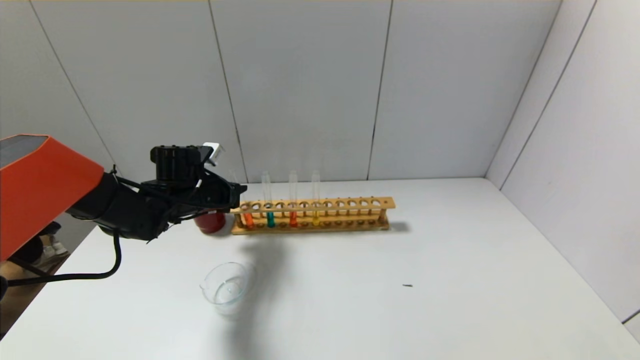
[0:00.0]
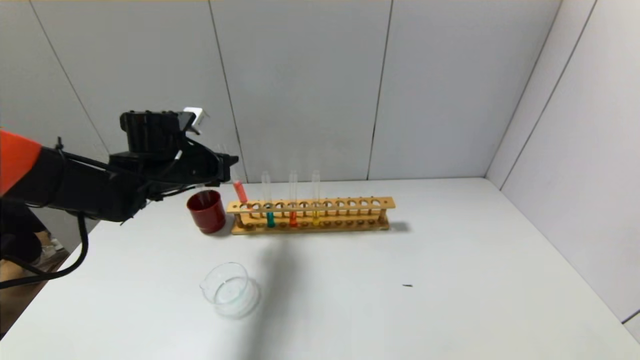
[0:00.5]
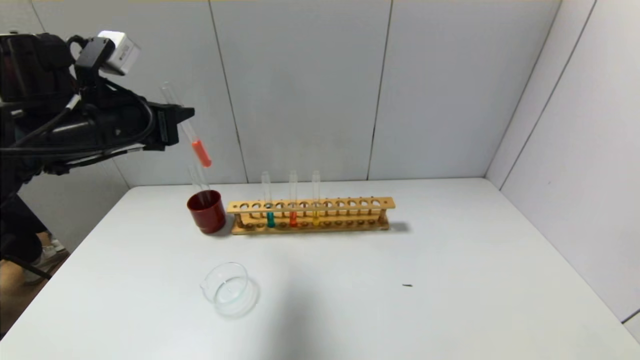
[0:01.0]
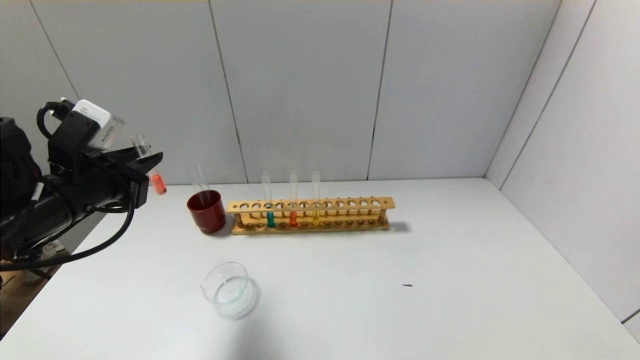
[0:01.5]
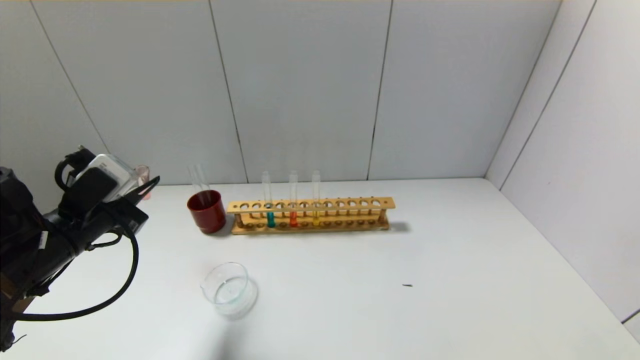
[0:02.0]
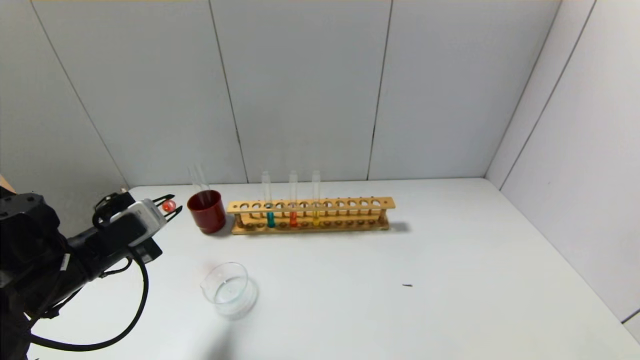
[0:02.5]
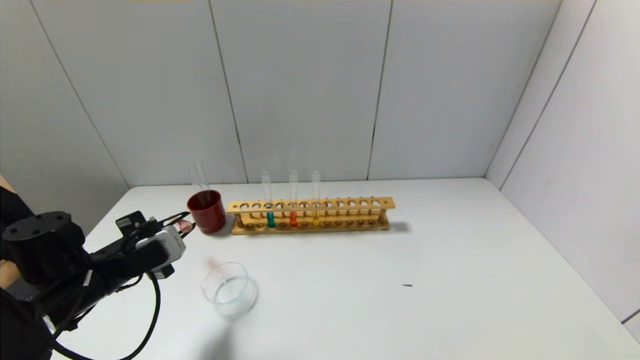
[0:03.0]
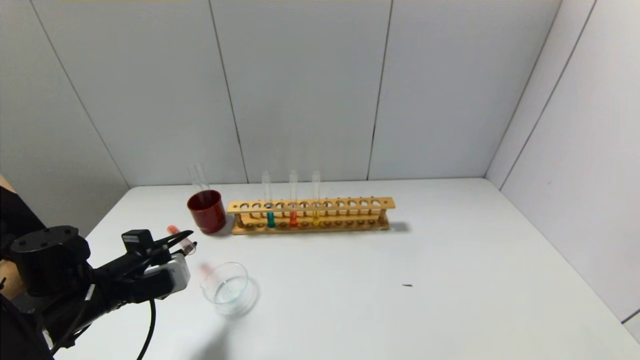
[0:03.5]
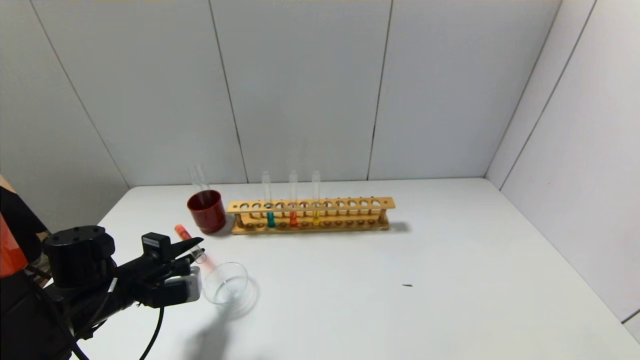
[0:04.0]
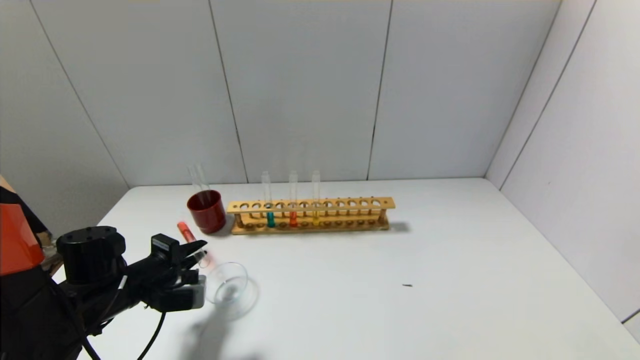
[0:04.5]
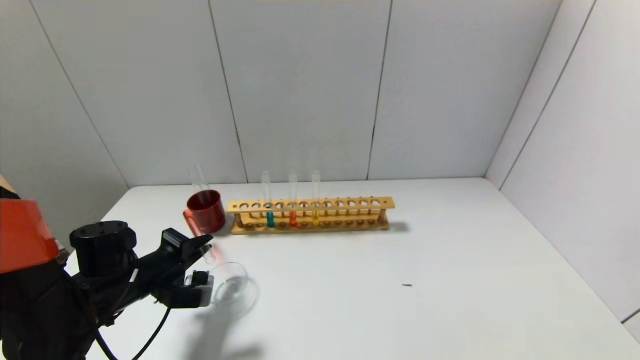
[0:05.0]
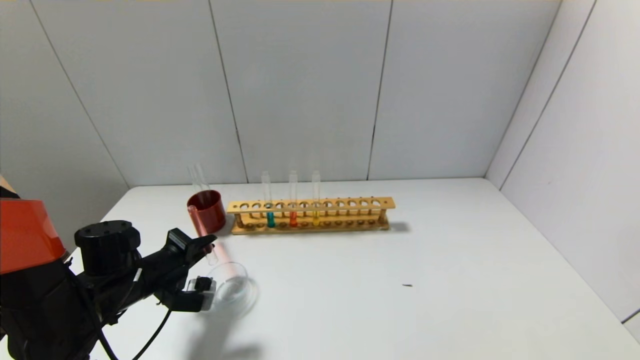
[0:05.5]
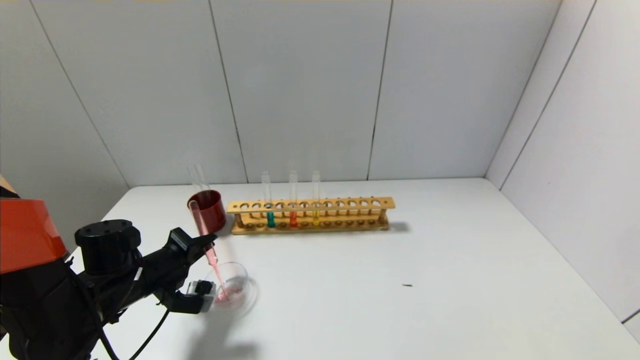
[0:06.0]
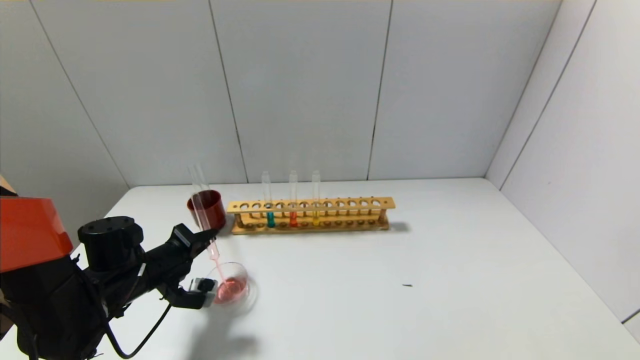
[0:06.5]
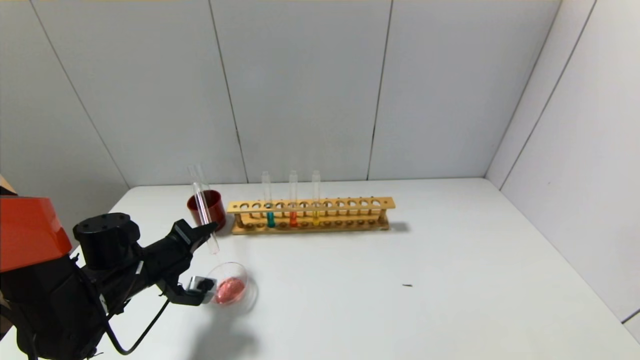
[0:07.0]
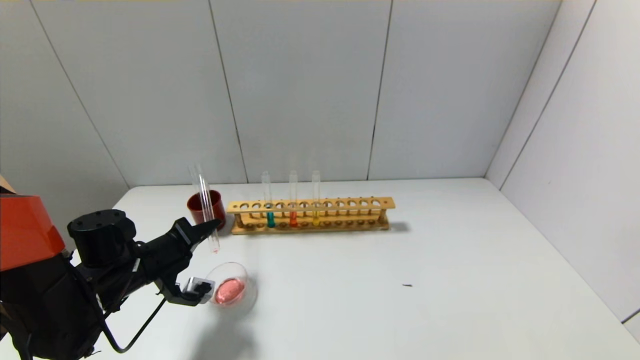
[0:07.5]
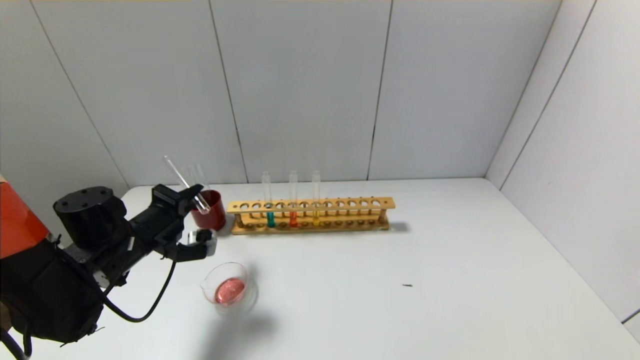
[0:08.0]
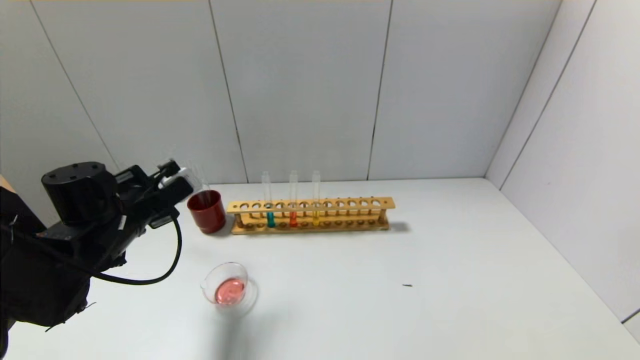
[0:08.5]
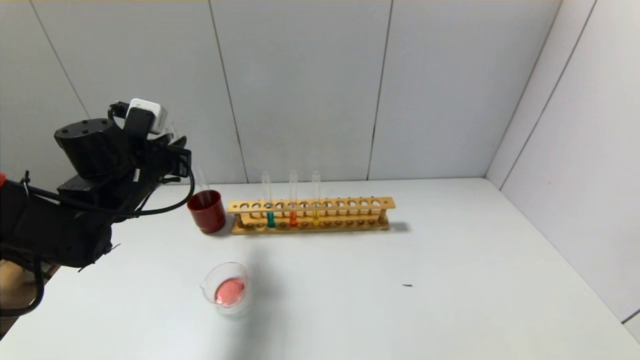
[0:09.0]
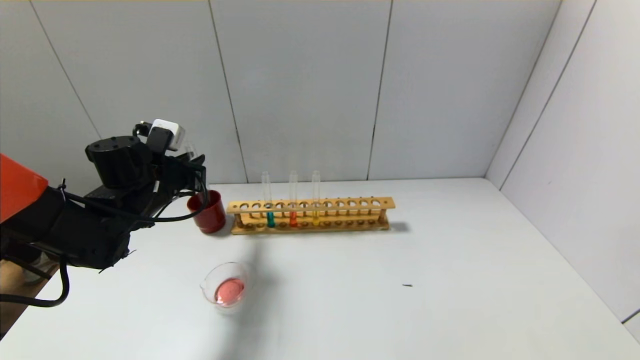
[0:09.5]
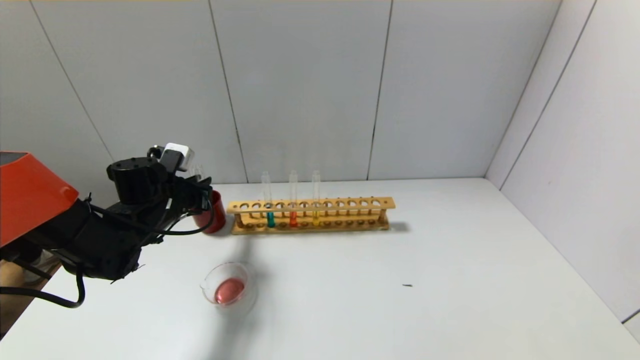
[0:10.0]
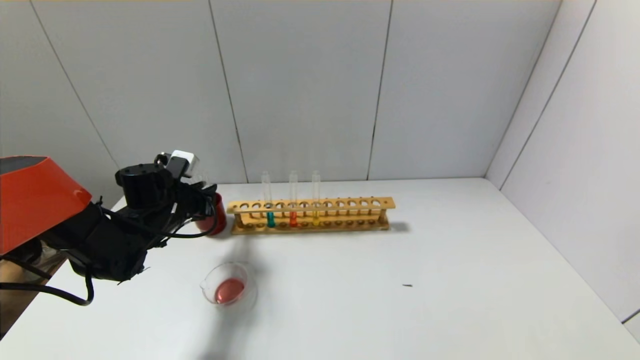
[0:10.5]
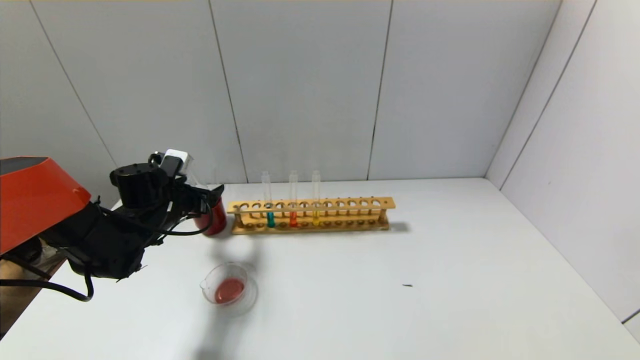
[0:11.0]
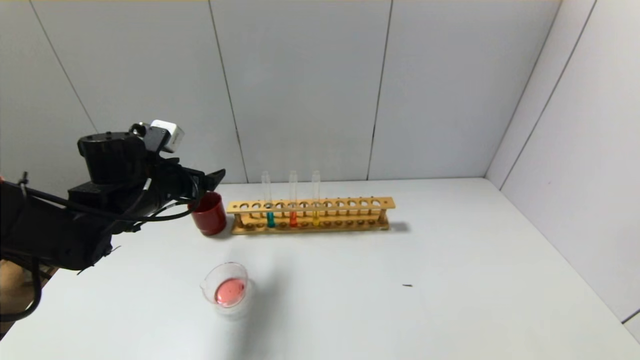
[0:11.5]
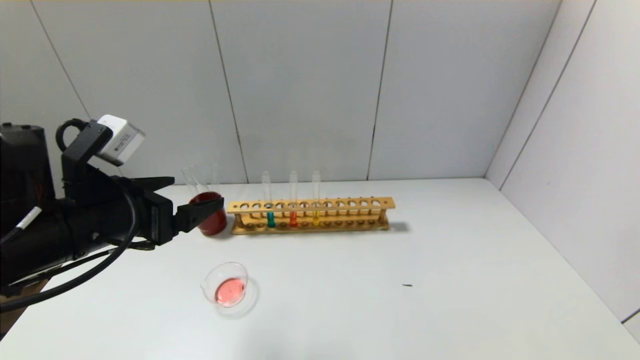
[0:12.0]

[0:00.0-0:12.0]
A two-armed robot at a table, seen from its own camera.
Step, 0:00.0 to 0:07.5: Pour the red reagent into the graduated cylinder with the left gripper.
Step, 0:08.0 to 0:10.5: Place the test tube into the brown cup with the left gripper.
0:00.0 to 0:02.0: The left gripper travels backward by roughly 15 cm.
0:02.0 to 0:04.0: The left gripper shifts approximately 10 cm downward.
0:06.0 to 0:08.0: The left gripper travels upward by about 5 cm.
0:08.0 to 0:10.0: The left gripper travels forward by some 5 cm, and travels upward and back again, approximately 10 cm each way.
0:10.0 to 0:12.0: The left gripper goes approximately 20 cm backward and upward, and opens up.

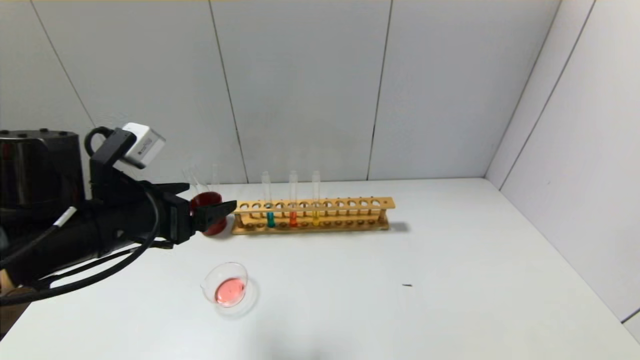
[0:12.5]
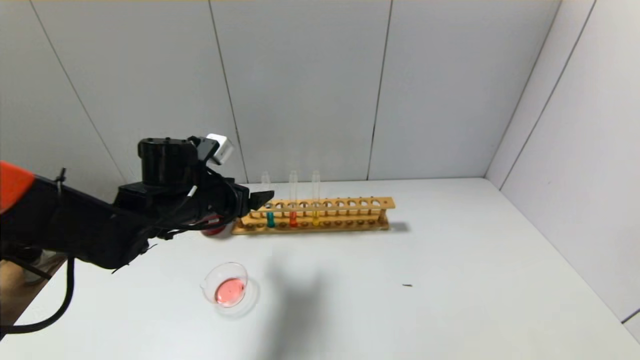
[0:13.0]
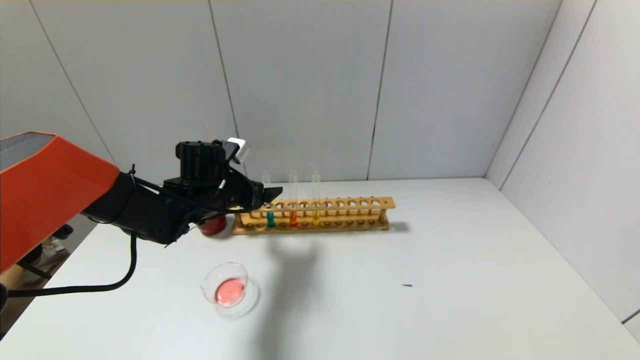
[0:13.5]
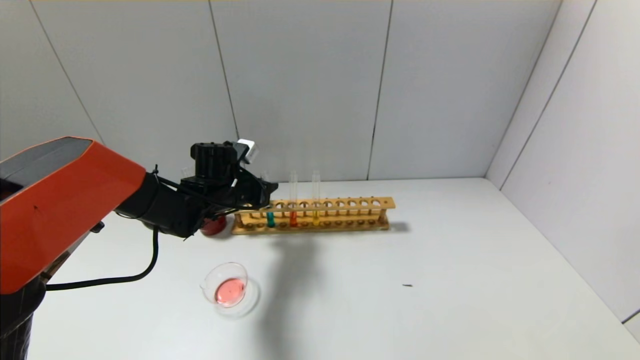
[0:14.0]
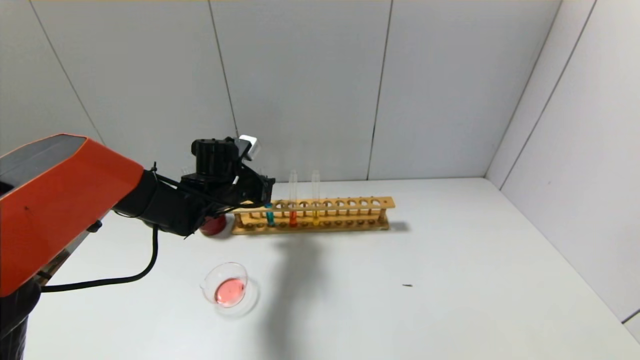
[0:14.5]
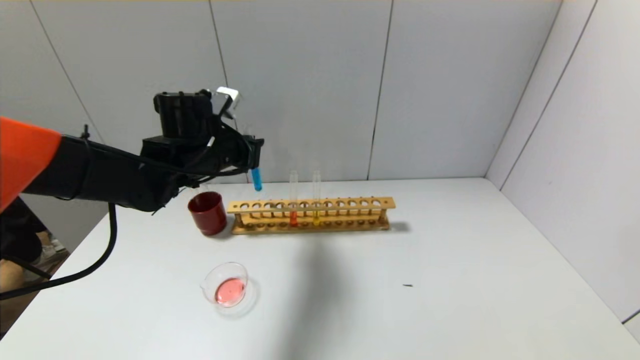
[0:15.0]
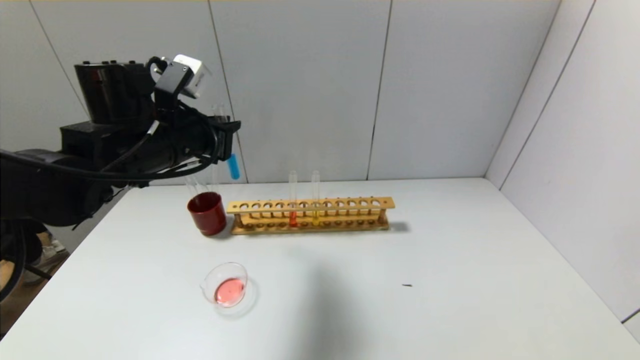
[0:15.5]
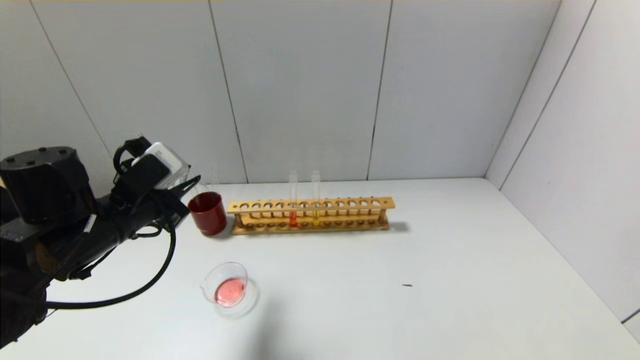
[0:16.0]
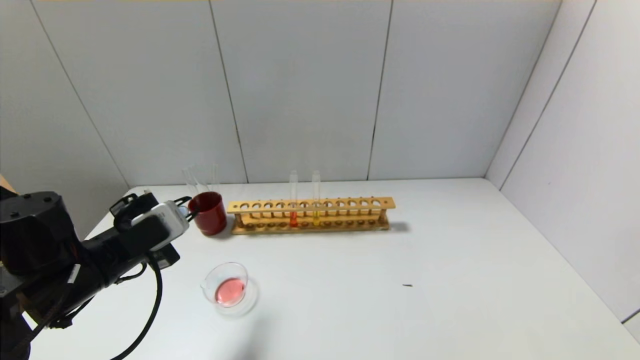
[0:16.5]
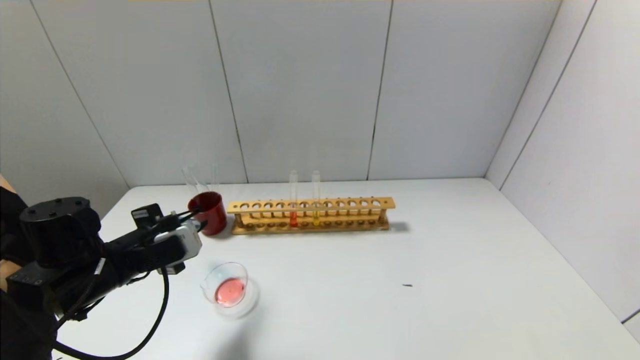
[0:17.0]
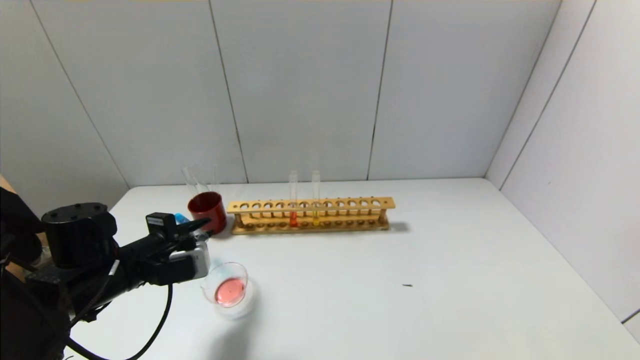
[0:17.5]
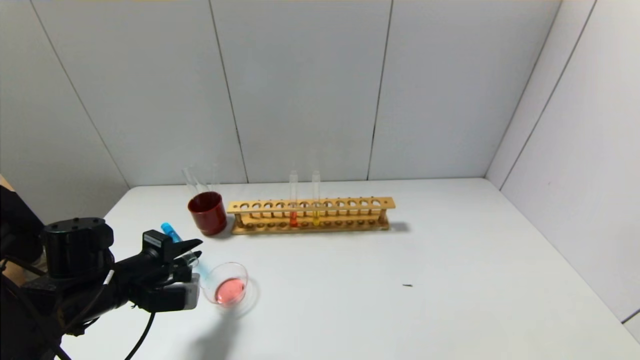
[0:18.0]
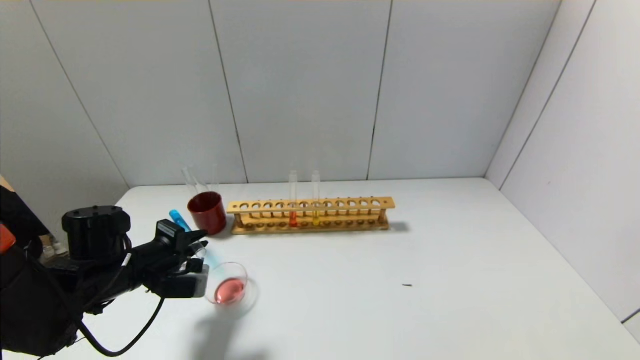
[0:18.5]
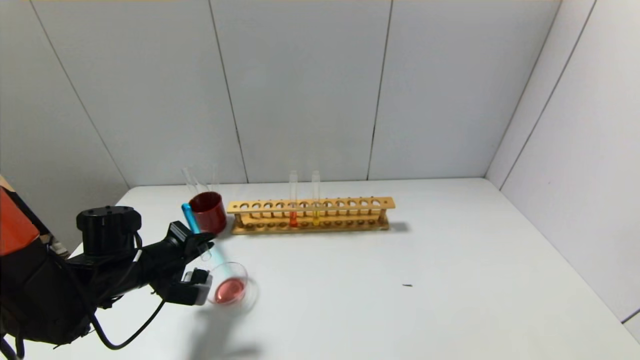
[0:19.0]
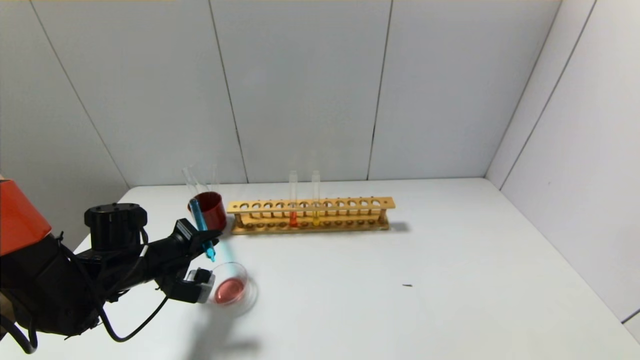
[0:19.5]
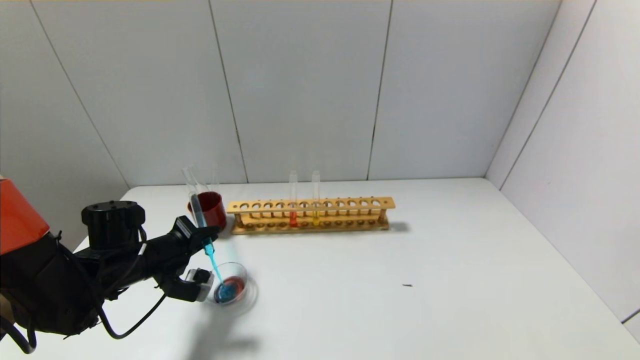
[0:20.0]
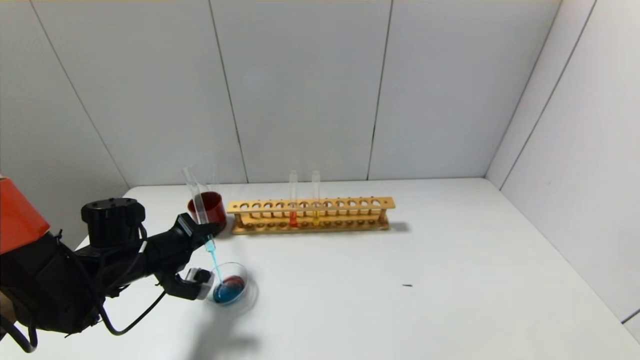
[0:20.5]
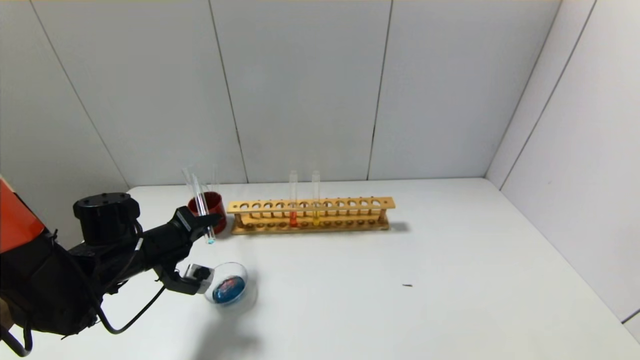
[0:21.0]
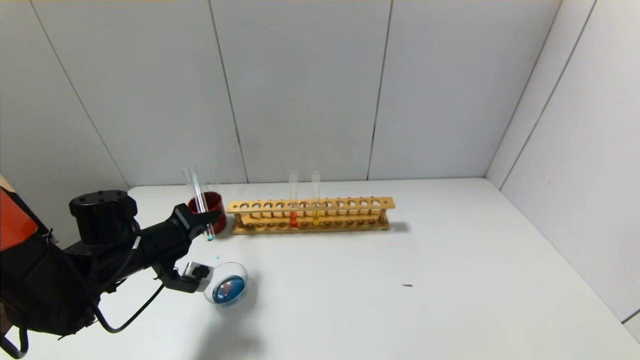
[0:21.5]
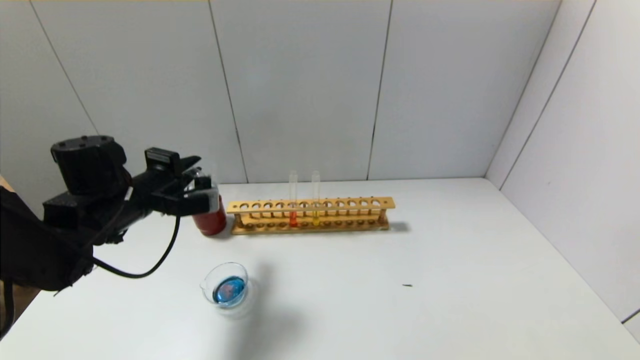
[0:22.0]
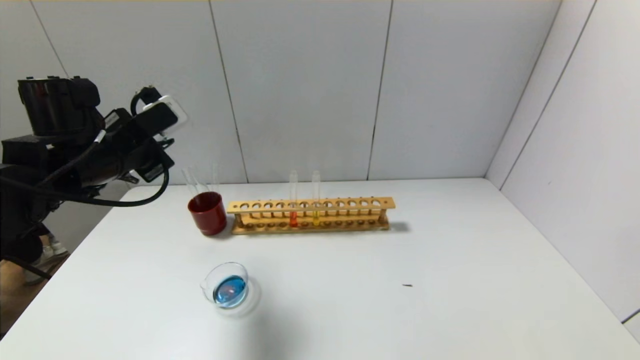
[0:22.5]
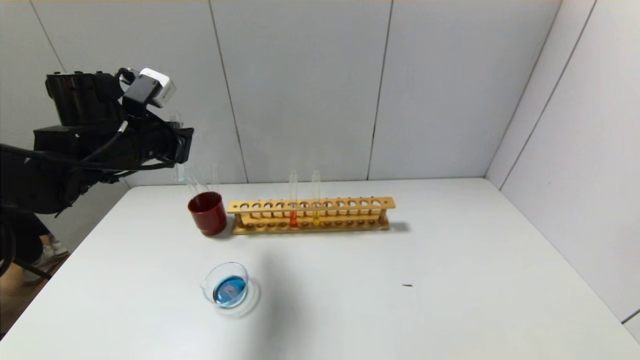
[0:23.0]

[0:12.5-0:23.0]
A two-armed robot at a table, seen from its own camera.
Step, 0:14.5 to 0:21.5: Pour the blue reagent into the graduated cylinder with the left gripper.
0:12.5 to 0:14.5: The left gripper travels forward and downward by approximately 20 cm, and closes up.
0:14.5 to 0:16.5: The left gripper shifts approximately 20 cm backward and to the left.
0:16.5 to 0:19.0: The left gripper heads downward and forward, covering about 10 cm.
0:19.0 to 0:21.0: The grippers move only a little.
0:21.0 to 0:23.0: The left gripper is displaced upward by about 15 cm.
